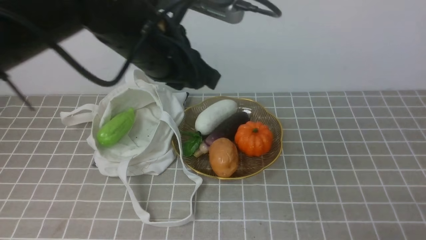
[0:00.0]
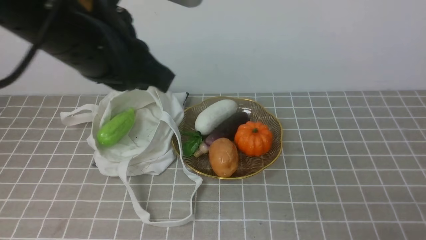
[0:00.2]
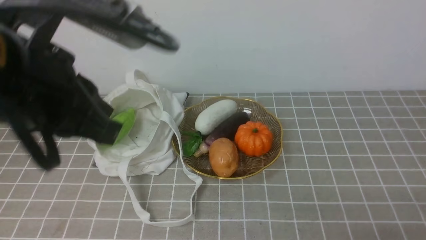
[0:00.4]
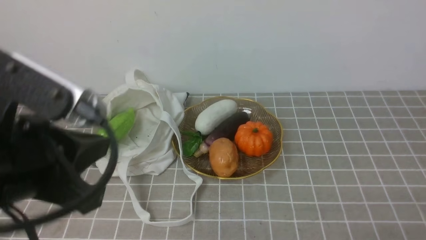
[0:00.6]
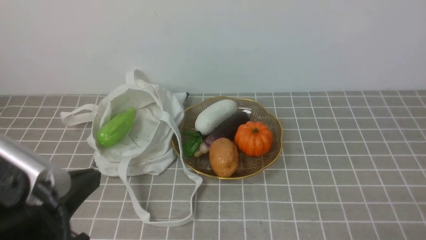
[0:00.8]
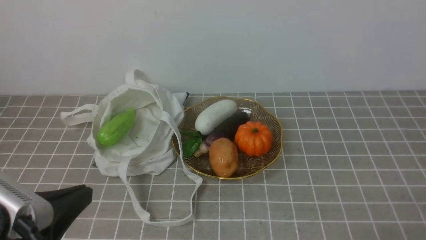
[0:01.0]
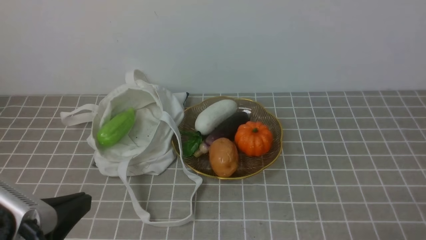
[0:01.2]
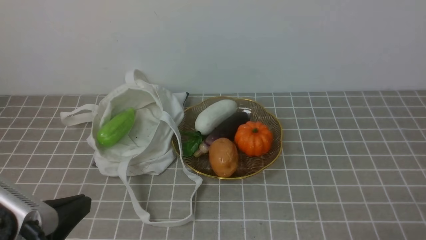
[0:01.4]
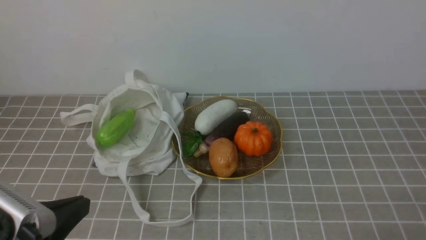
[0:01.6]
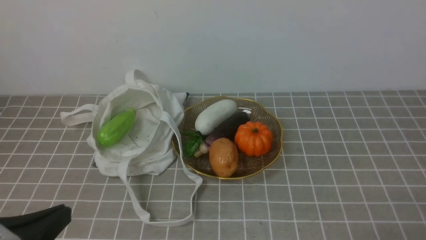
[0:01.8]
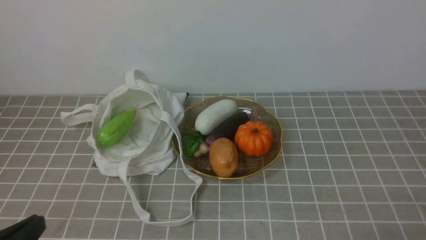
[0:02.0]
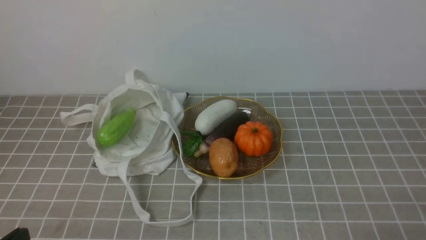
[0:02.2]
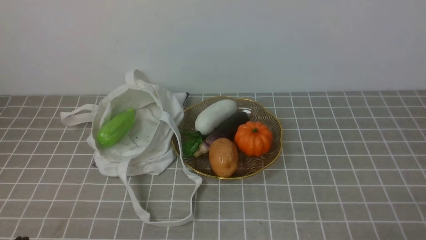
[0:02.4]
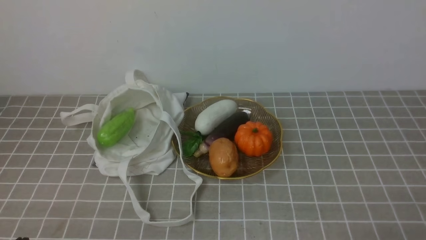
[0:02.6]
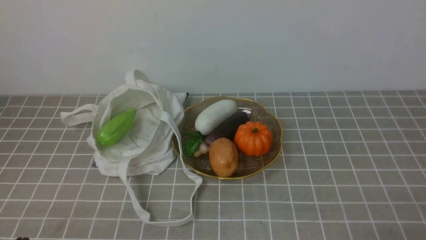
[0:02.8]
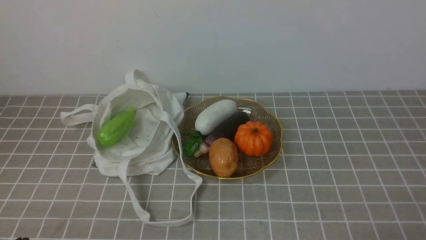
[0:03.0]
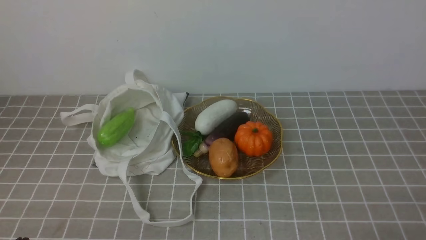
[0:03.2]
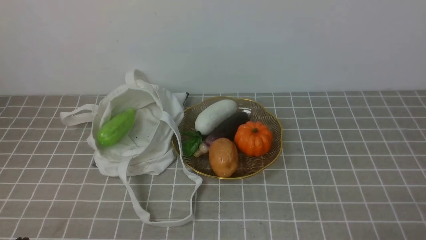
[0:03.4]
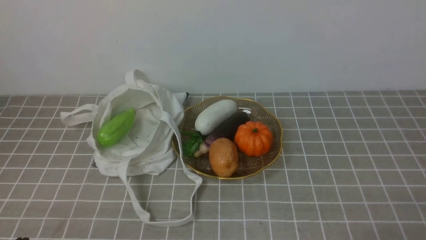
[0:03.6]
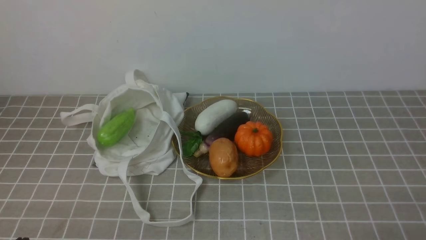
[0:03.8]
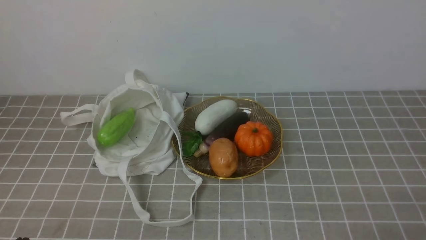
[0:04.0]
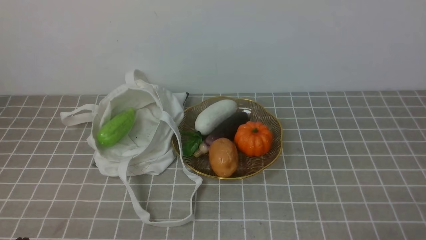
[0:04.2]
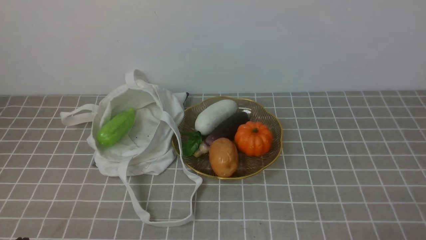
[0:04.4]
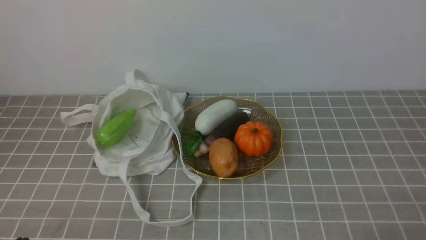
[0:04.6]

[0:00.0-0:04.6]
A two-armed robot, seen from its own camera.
Task of the whole recording: take vegetables from bag on grey coffee tablecloth place on plate.
0:00.0 to 0:01.6: The left gripper moves backward and to the left, approximately 25 cm, and closes up.
0:01.6 to 0:03.0: The left gripper heads downward, covering roughly 10 cm.
0:03.0 to 0:04.6: Both grippers stay put.

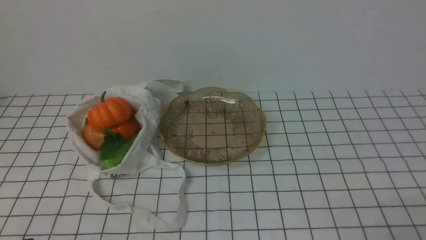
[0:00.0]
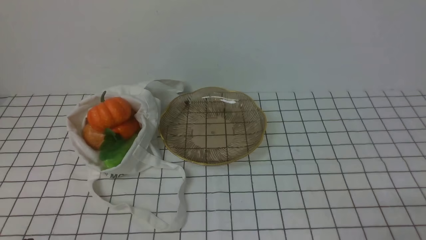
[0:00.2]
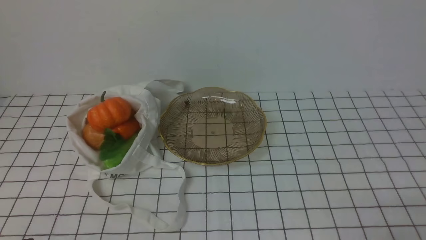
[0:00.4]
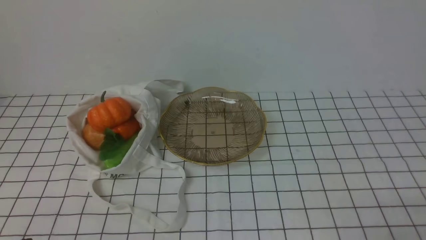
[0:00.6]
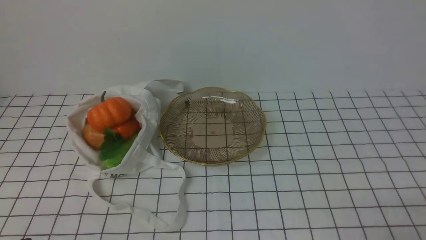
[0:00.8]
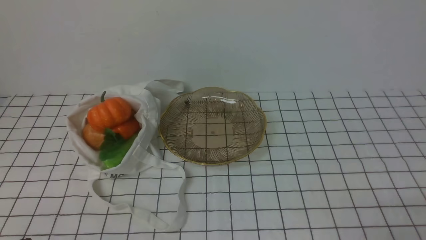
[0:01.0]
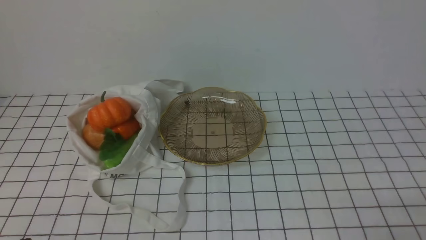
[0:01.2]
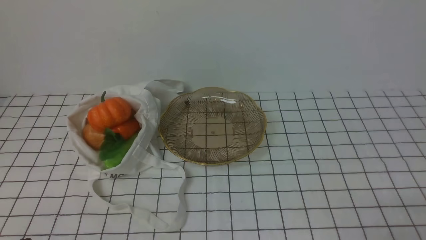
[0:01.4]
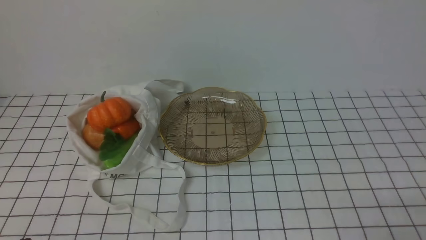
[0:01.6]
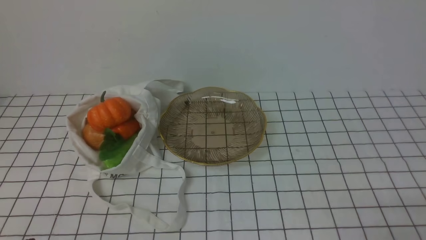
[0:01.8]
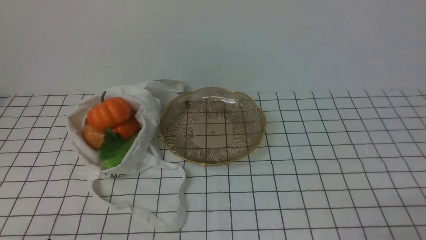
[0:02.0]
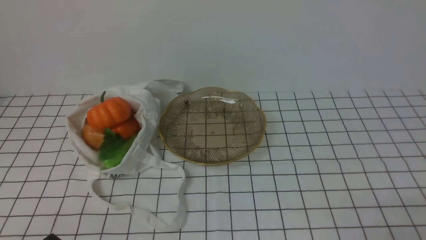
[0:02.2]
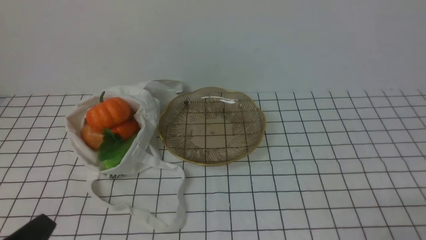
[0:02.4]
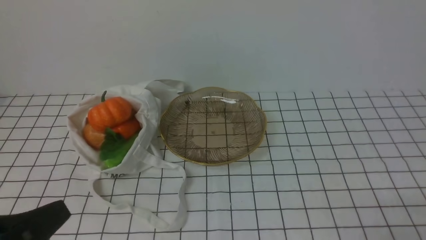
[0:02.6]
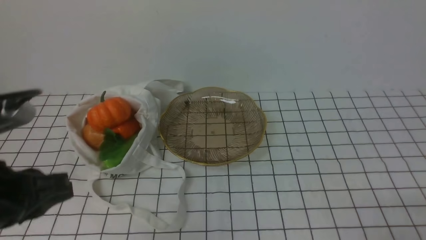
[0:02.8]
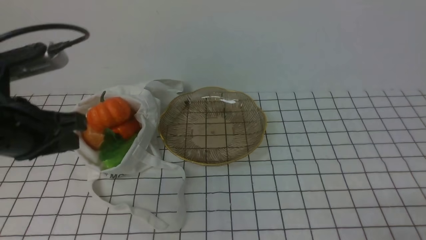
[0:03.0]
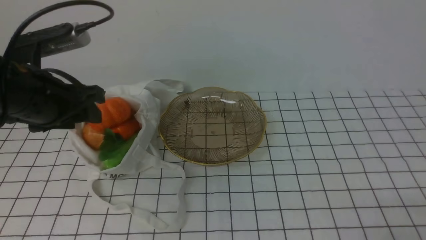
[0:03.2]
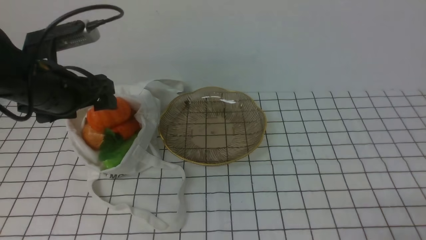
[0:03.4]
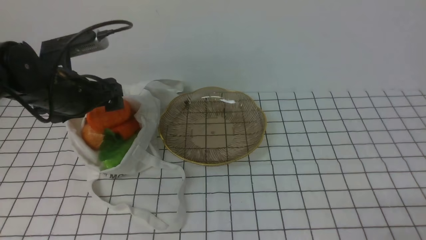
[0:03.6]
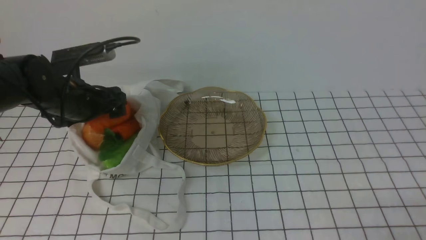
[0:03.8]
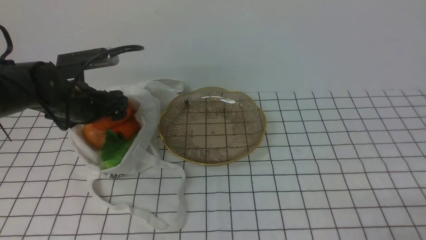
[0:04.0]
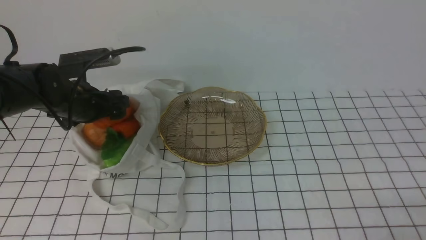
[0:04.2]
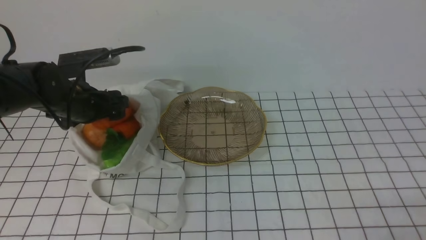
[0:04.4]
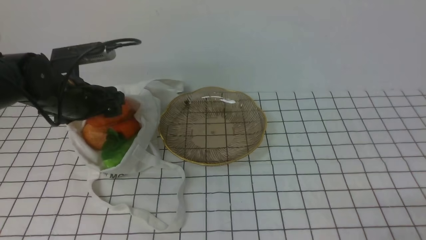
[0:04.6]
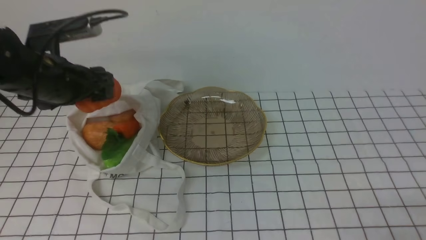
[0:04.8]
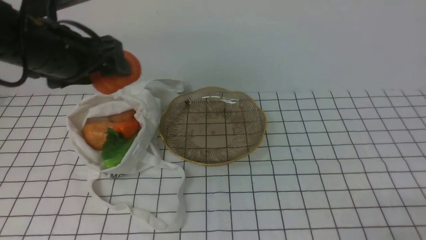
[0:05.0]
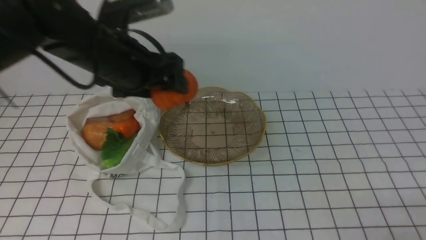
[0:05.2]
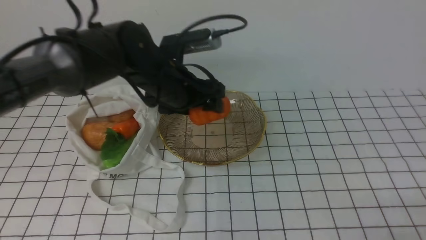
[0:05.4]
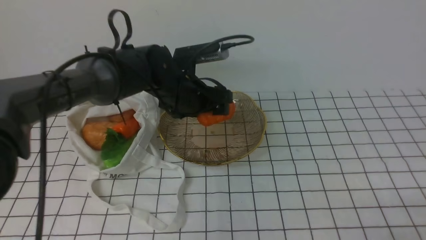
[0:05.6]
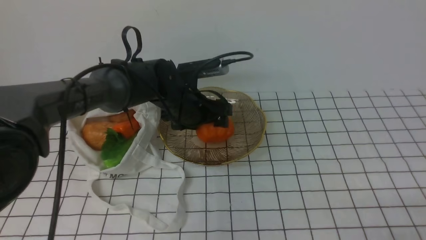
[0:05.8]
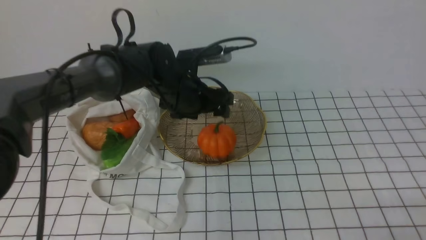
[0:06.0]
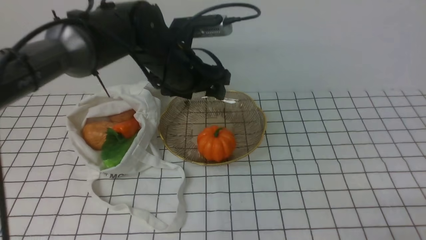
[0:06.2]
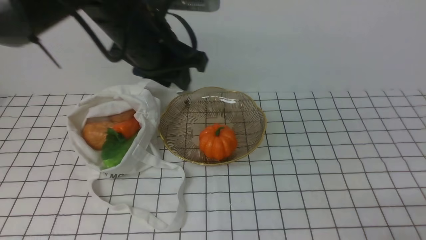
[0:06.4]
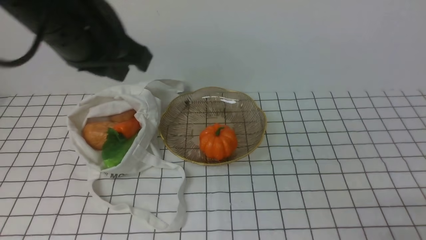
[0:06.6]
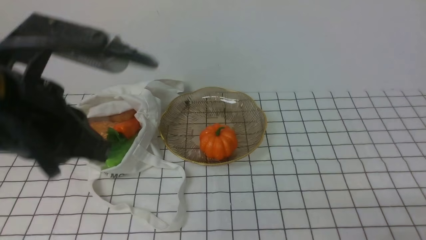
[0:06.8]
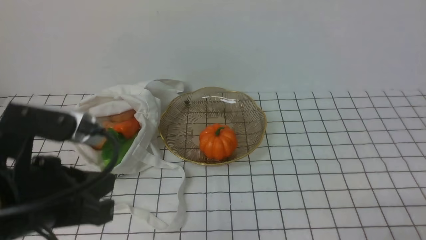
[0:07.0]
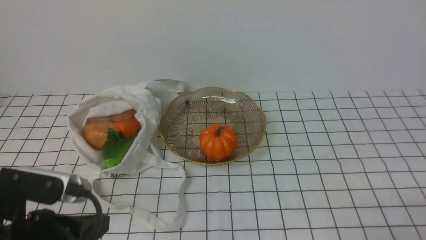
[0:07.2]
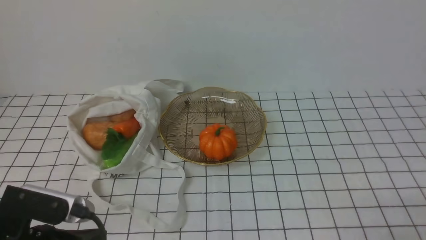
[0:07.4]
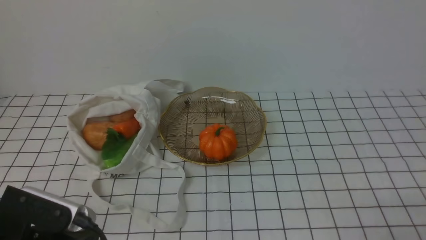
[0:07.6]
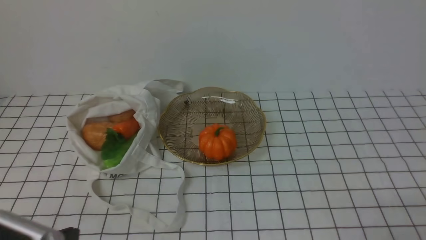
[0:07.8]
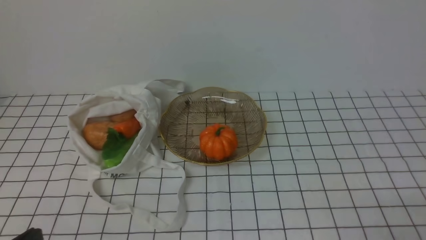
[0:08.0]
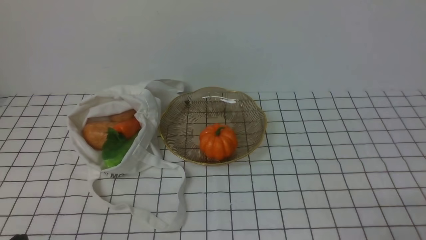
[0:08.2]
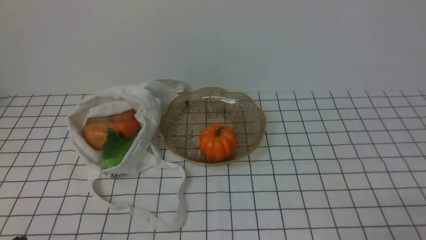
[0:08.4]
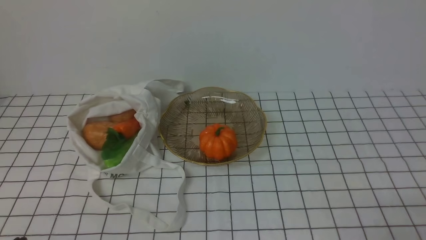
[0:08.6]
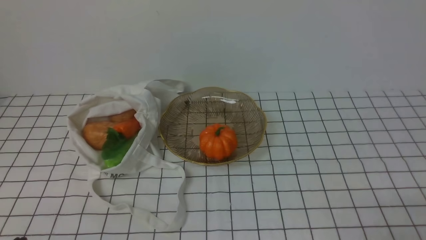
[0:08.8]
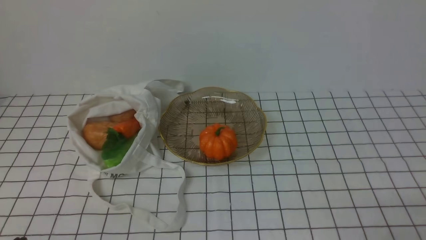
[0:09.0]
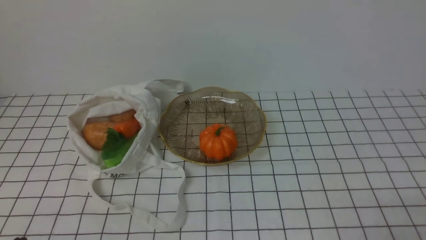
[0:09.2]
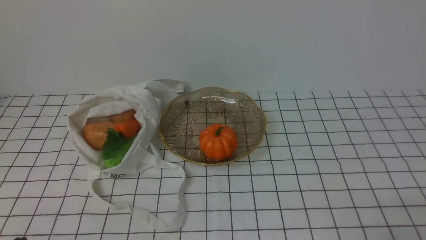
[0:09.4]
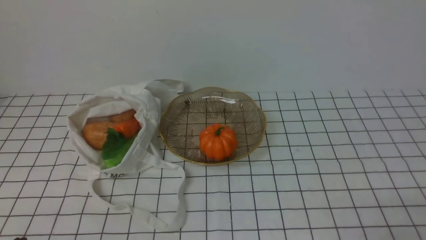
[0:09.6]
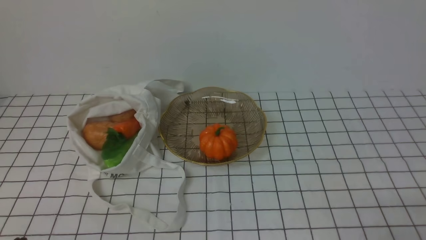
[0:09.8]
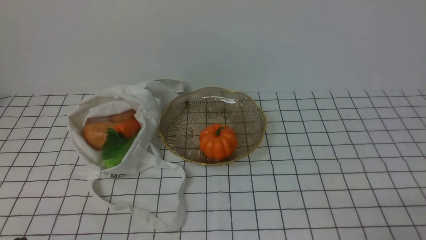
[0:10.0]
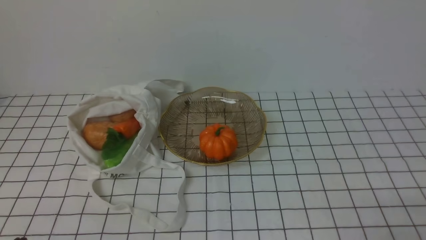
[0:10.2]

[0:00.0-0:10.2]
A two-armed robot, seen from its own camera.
Task of the whole recording: take vegetables from bag on white checkered tablecloth place on plate.
Step, 0:00.0 to 0:04.4: Grasp the pumpkin with left gripper.
Step, 0:04.6 to 0:06.0: Place the pumpkin on the plate with left gripper.
0:01.4 to 0:03.0: The left gripper goes about 20 cm upward and forward.
0:03.0 to 0:04.4: The left gripper moves forward and downward, some 20 cm, and opens its fingers.
0:04.4 to 0:05.8: The left gripper is displaced to the right by roughly 15 cm.
0:05.8 to 0:07.2: The left gripper moves backward and to the left, about 30 cm, and closes up.
0:07.2 to 0:08.8: The left gripper goes about 15 cm downward, backward and to the left.
0:08.8 to 0:10.2: Both grippers stay about where they are.
